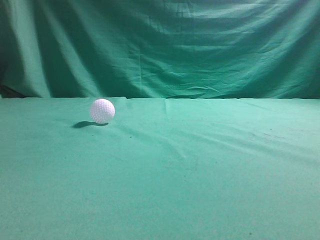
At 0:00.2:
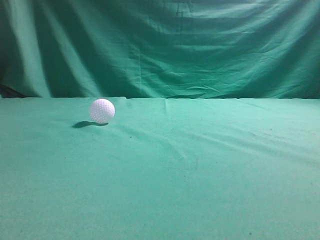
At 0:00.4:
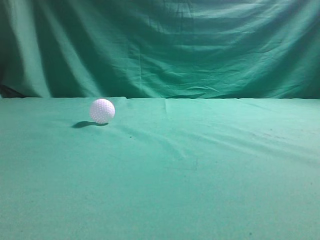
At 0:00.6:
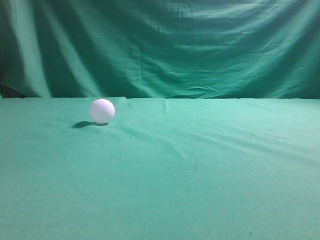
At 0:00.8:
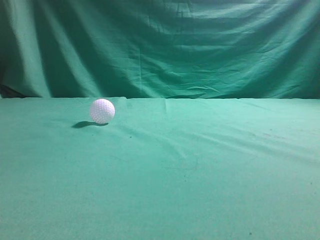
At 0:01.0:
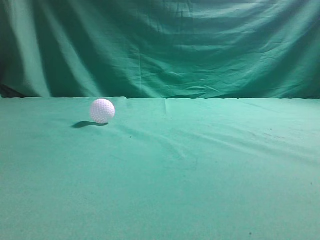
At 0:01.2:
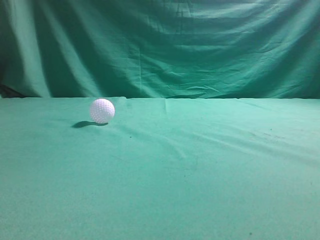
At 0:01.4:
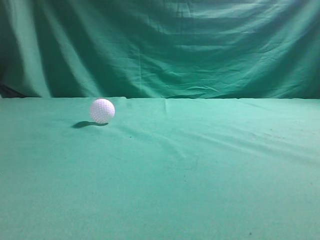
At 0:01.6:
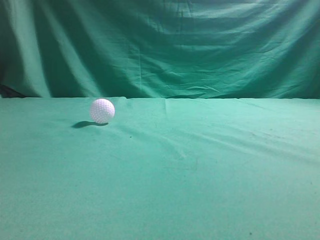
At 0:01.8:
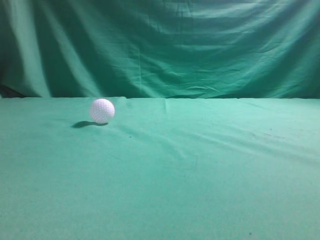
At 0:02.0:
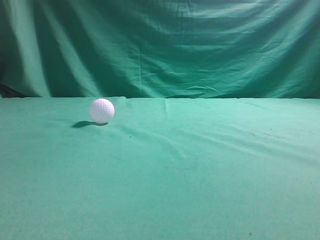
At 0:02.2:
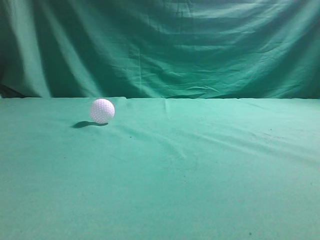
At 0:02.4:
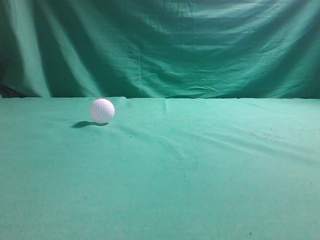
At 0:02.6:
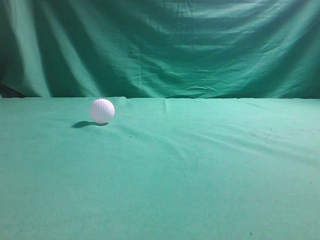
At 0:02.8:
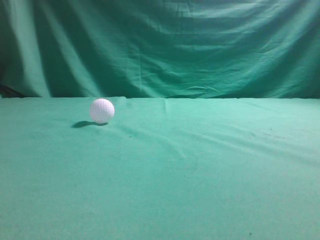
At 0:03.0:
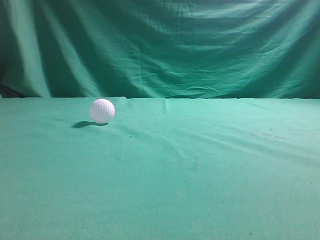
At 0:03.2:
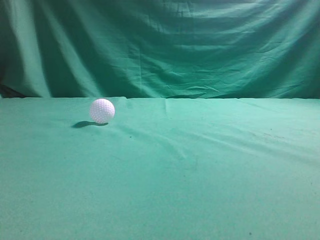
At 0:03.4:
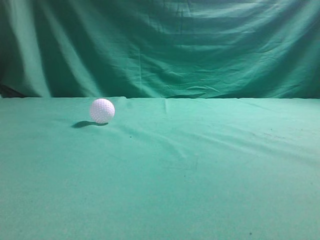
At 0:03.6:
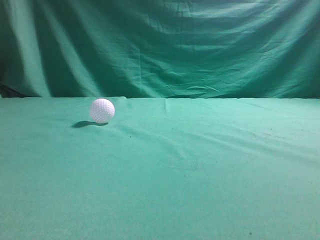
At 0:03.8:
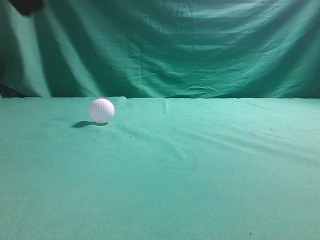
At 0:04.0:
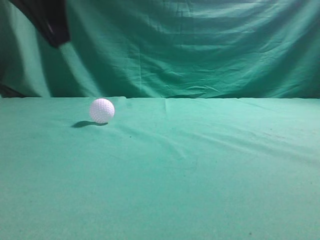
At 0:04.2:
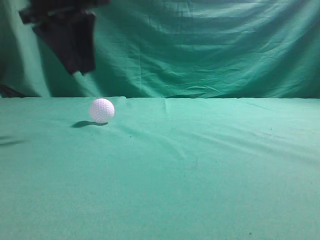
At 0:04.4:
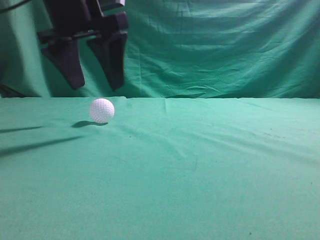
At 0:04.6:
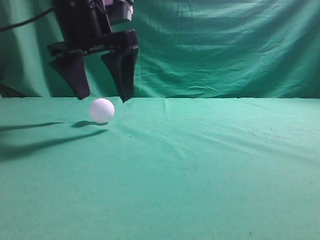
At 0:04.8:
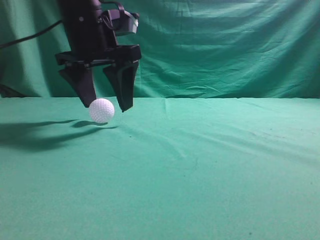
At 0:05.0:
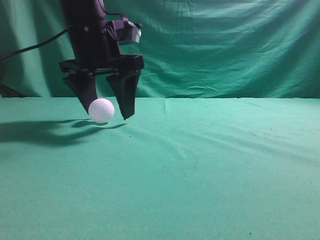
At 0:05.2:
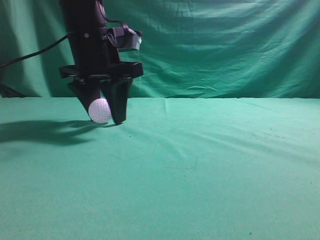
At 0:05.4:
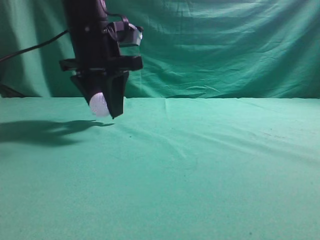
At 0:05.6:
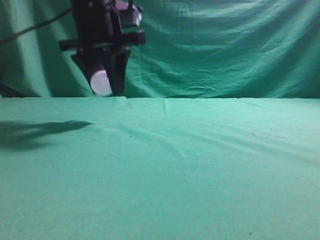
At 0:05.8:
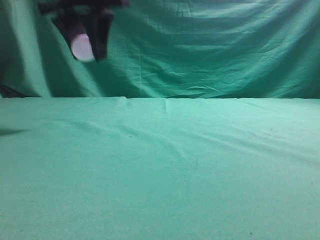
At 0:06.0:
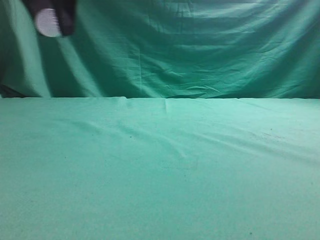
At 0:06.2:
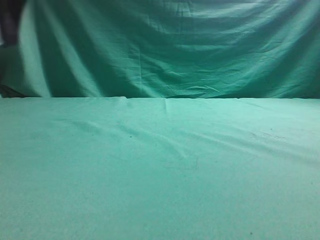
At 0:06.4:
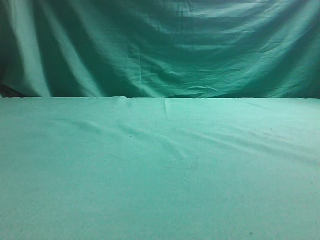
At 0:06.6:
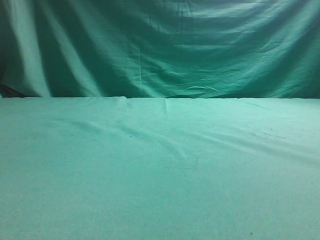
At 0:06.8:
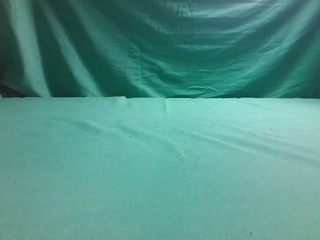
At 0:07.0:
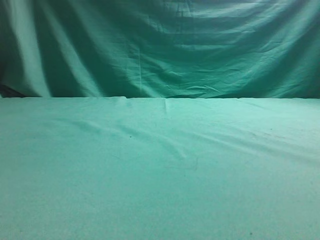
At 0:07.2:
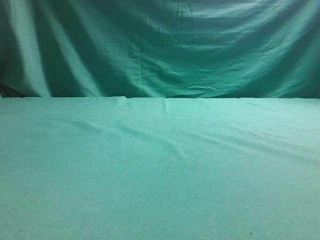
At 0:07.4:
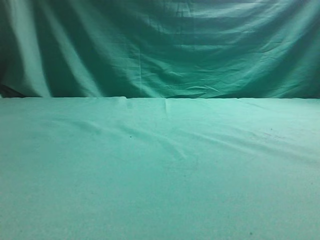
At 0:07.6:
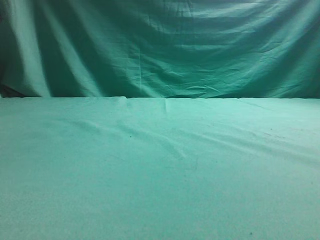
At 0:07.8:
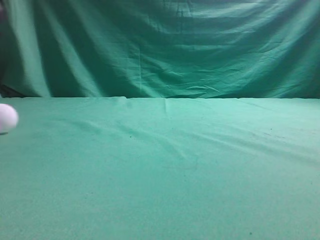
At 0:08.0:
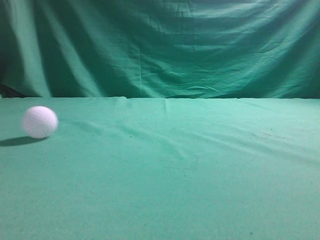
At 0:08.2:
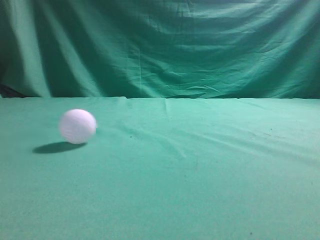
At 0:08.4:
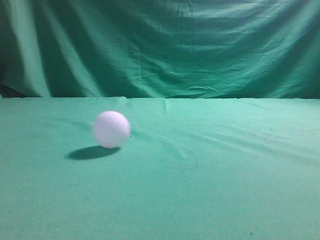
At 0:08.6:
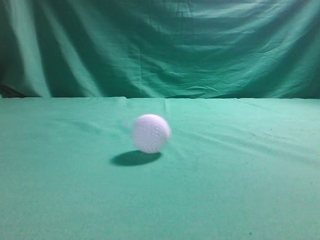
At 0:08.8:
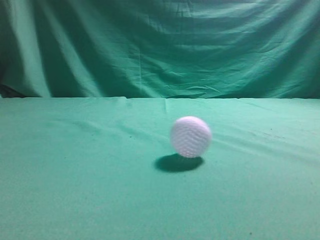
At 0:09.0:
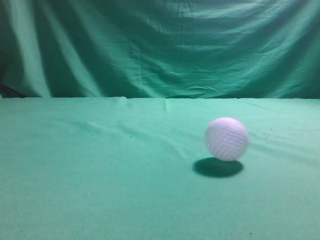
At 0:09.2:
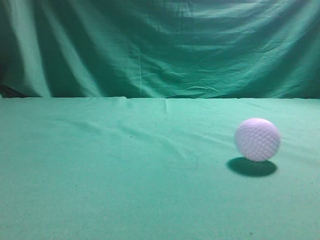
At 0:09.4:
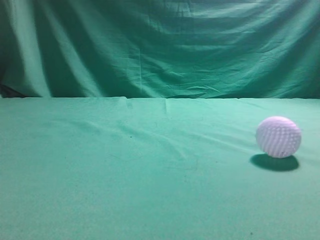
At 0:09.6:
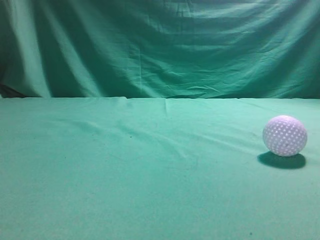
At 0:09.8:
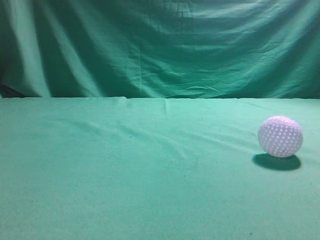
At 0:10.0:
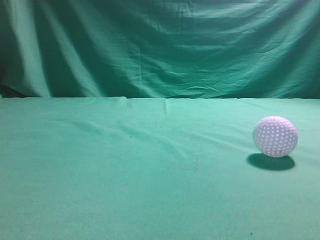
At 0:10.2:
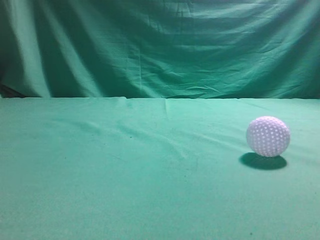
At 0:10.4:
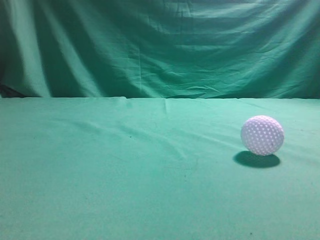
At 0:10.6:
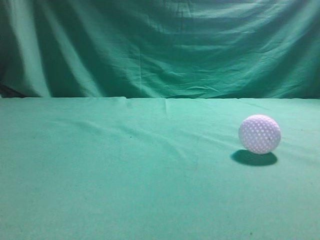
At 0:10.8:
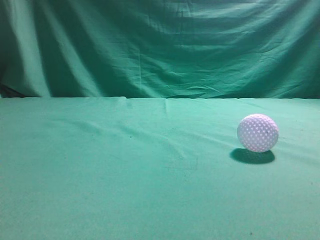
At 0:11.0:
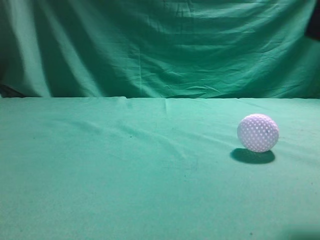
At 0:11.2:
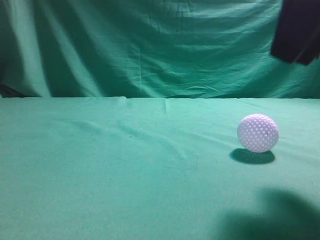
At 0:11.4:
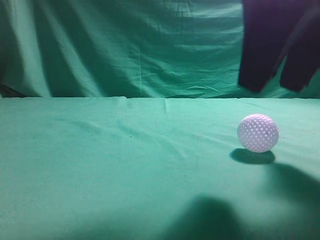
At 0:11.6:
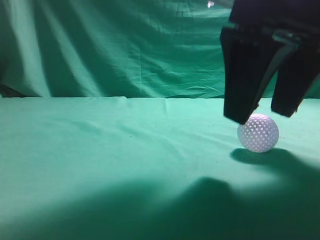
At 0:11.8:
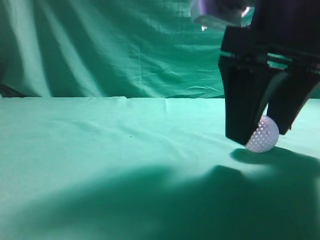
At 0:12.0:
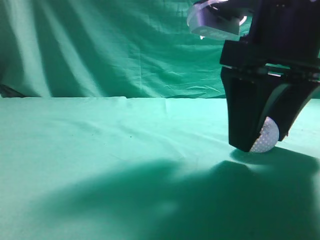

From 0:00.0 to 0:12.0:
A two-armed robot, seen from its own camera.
Task of the whole recording: pick up the ball and place it on the plate, then pick up the ball from the plate and put it in the center of the table.
Step, from 0:00.0 to 0:05.4: Grab the spherical object with your left arm.
Step, from 0:05.6 to 0:07.2: Place the sphere on the white object.
From 0:03.0 to 0:04.4: The left gripper is displaced forward and to the right by approximately 30 cm, and opens.
From 0:04.4 to 0:06.0: The left gripper moves upward, some 10 cm, and closes up.
From 0:06.0 to 0:07.6: The left gripper shifts roughly 15 cm to the left, and opens its fingers.
From 0:09.0 to 0:10.4: The right gripper heads upward, covering approximately 10 cm.
From 0:10.4 to 0:12.0: The right gripper travels forward, to the left and downward by approximately 20 cm, and opens.

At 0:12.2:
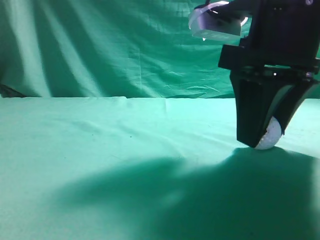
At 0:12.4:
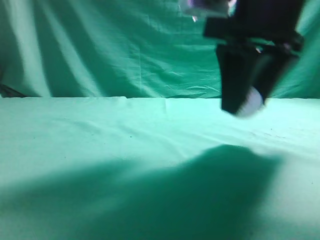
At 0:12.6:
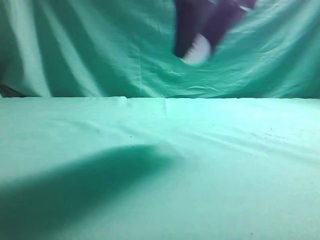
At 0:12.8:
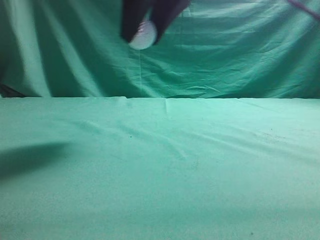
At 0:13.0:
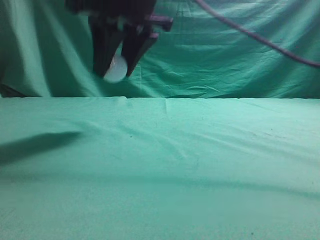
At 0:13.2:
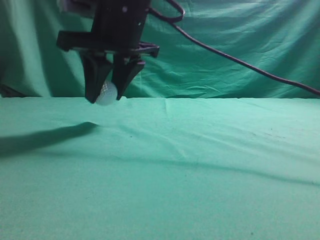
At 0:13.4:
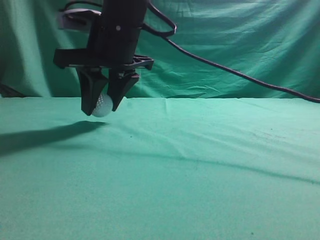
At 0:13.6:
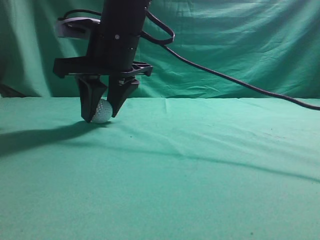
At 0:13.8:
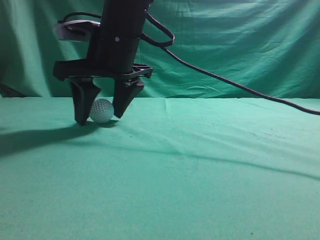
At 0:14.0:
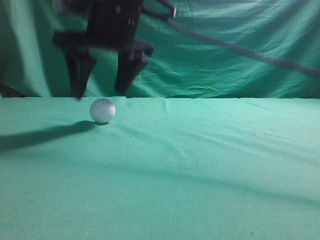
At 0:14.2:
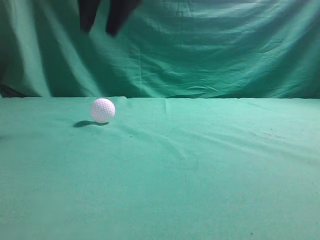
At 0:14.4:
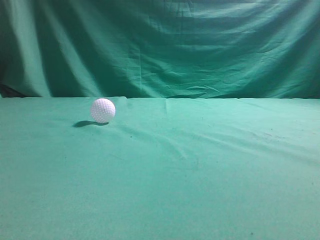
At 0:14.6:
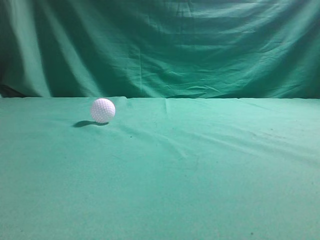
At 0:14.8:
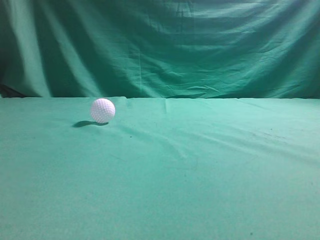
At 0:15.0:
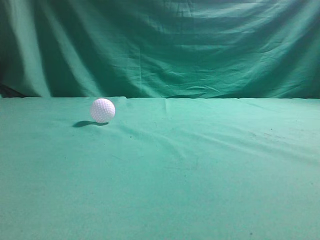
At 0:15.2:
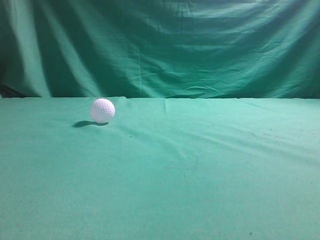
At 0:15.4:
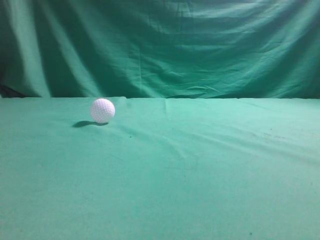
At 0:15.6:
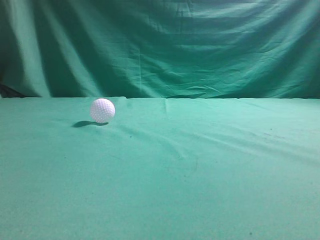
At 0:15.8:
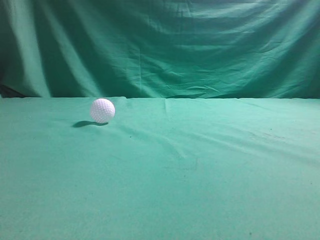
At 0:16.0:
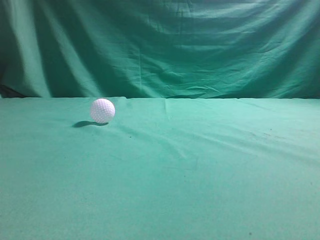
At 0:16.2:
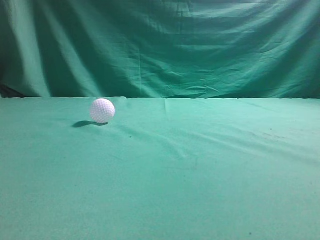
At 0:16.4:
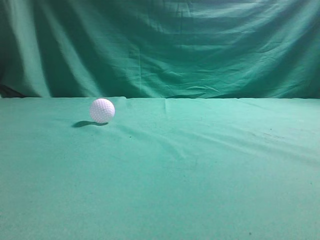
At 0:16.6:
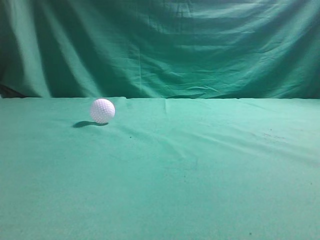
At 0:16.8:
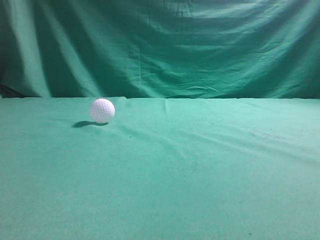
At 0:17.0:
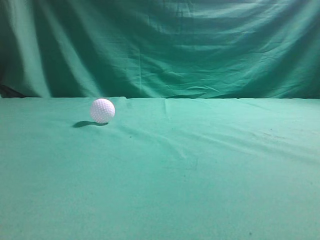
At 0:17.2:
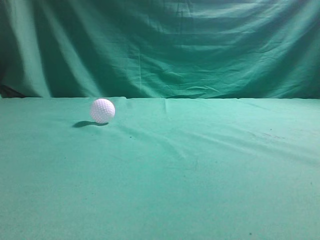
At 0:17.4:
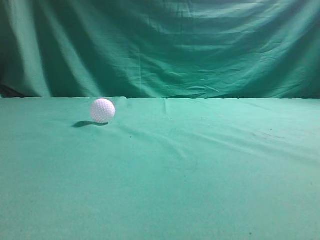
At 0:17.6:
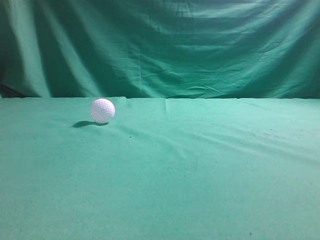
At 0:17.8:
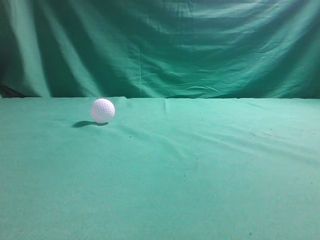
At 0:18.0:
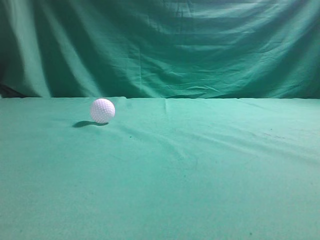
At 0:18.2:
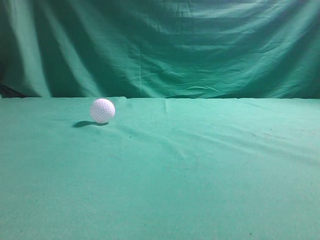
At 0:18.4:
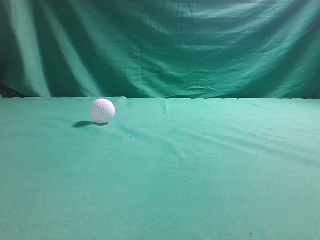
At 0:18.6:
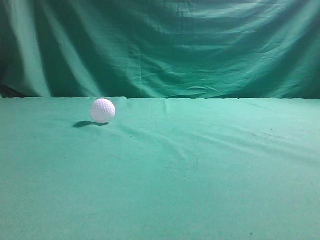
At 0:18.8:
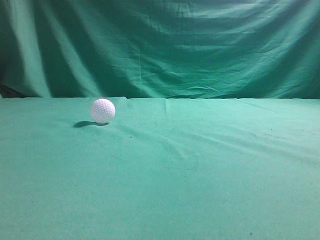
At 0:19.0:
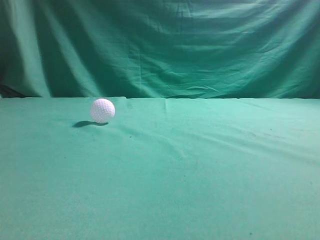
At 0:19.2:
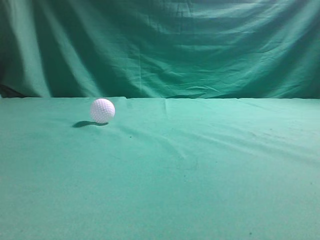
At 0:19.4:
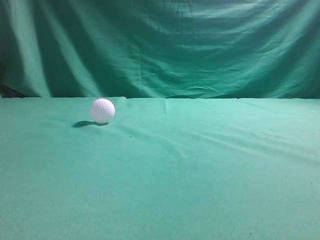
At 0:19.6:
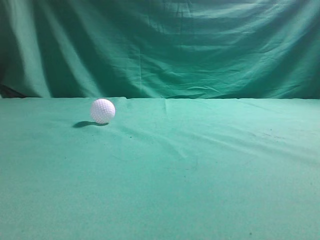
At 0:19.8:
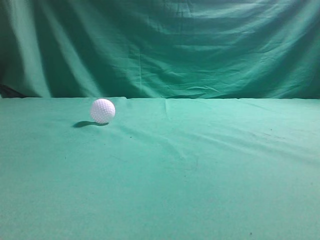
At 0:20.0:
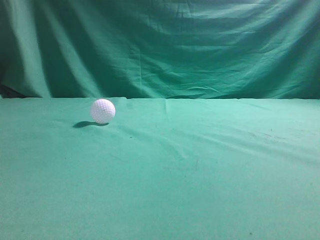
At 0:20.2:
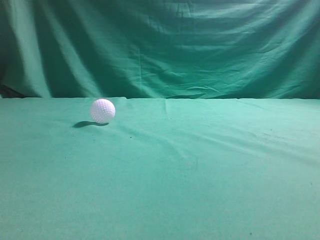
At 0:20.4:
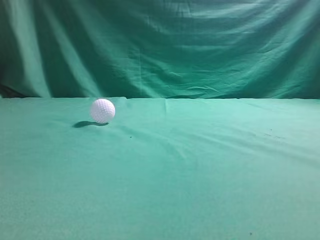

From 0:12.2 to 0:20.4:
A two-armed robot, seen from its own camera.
Task of the whole recording: pick up the ball and place it on the plate, then pick up the ball from the plate and put it in the center of the table.
Step, from 0:12.4 to 0:14.0: Put the picked-up object on the table.
From 0:12.2 to 0:13.8: The right gripper heads to the left and forward, covering some 20 cm.
From 0:13.8 to 0:15.4: The right gripper travels upward, backward and to the right by approximately 40 cm, and closes up.
